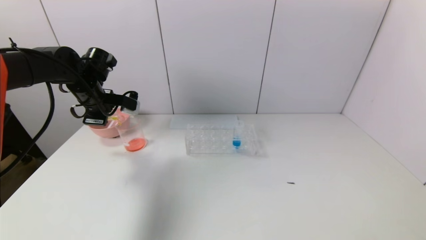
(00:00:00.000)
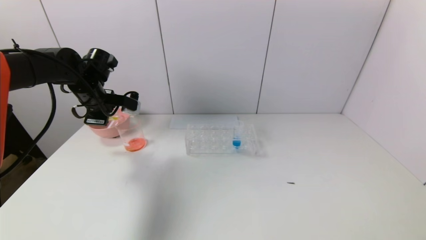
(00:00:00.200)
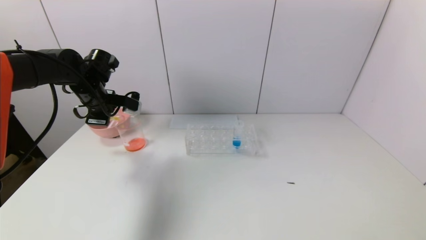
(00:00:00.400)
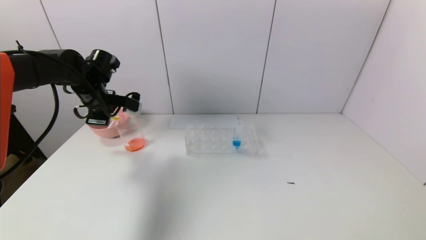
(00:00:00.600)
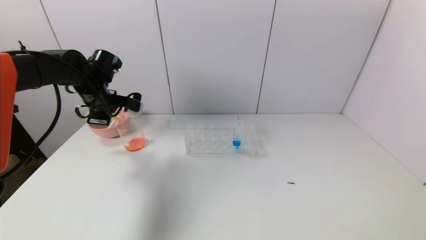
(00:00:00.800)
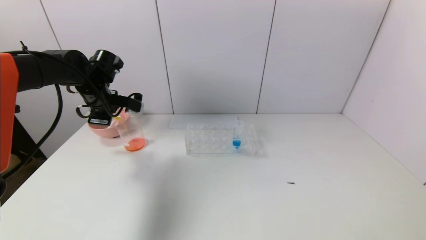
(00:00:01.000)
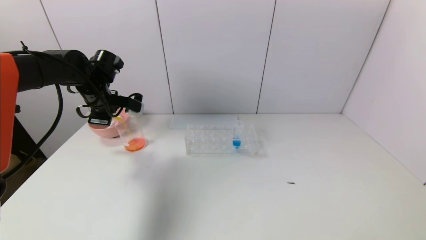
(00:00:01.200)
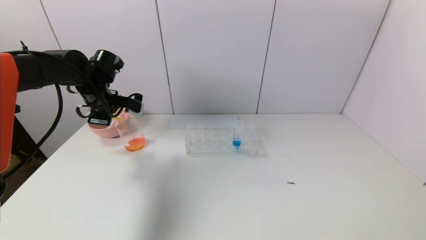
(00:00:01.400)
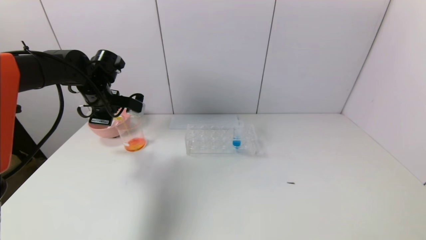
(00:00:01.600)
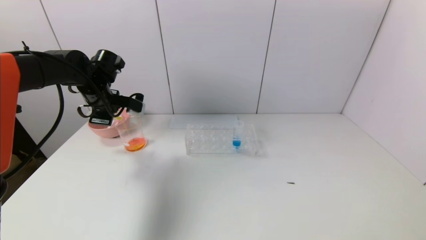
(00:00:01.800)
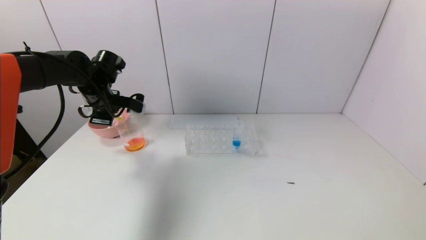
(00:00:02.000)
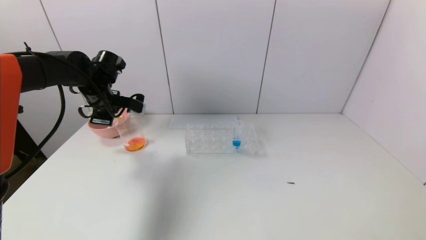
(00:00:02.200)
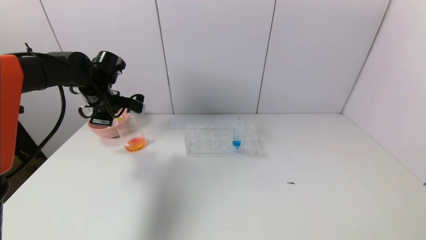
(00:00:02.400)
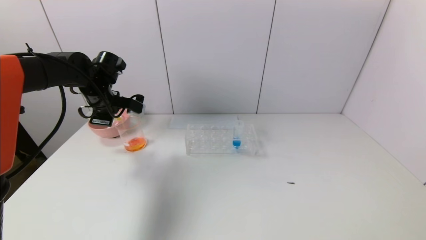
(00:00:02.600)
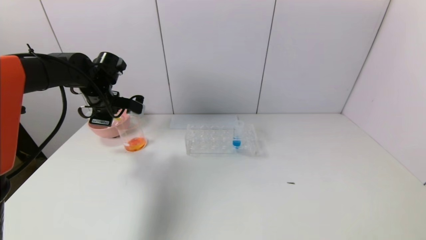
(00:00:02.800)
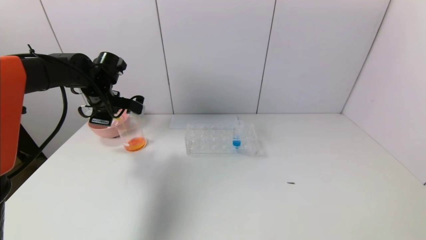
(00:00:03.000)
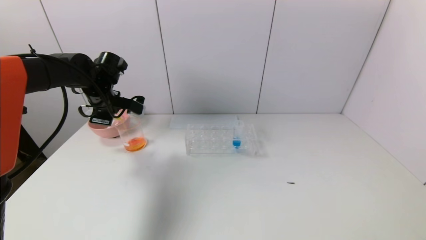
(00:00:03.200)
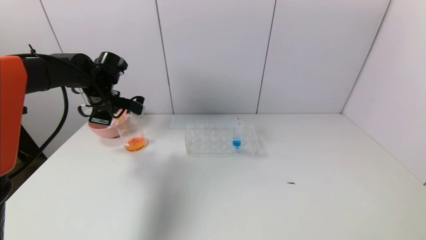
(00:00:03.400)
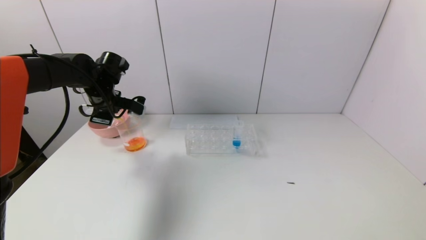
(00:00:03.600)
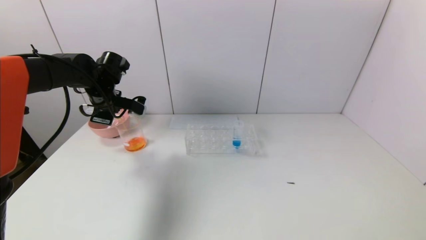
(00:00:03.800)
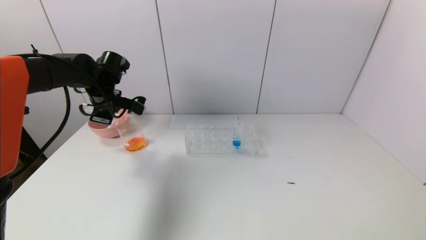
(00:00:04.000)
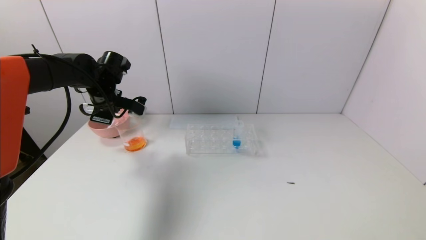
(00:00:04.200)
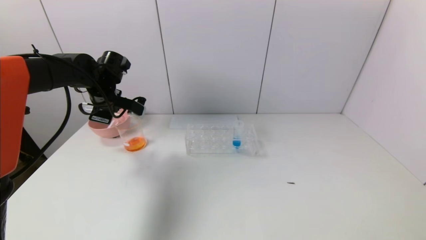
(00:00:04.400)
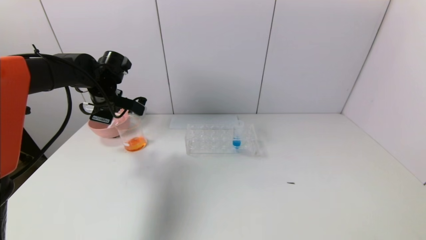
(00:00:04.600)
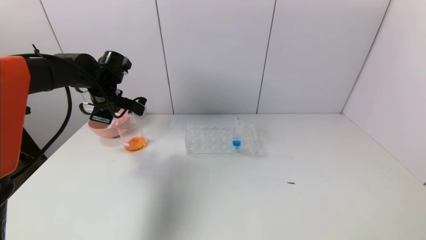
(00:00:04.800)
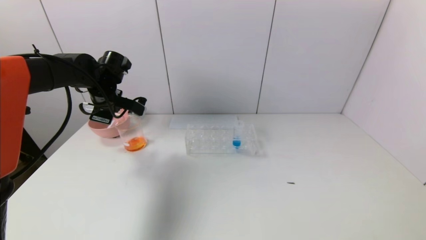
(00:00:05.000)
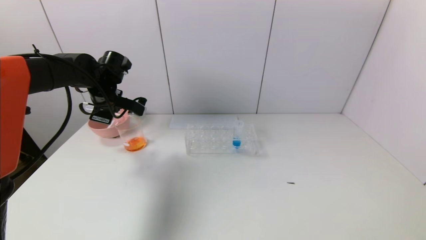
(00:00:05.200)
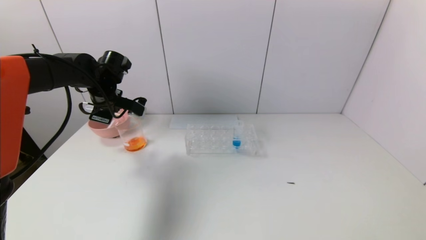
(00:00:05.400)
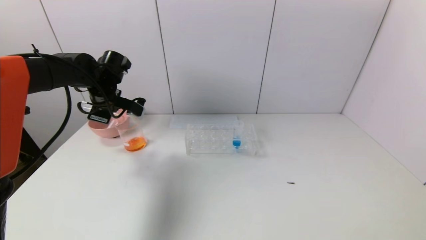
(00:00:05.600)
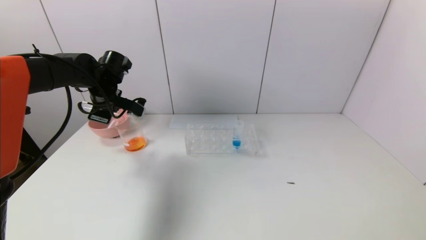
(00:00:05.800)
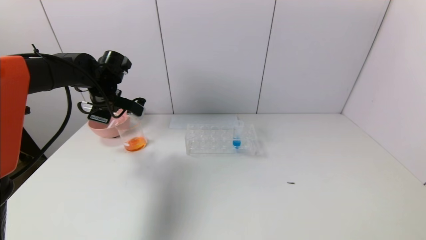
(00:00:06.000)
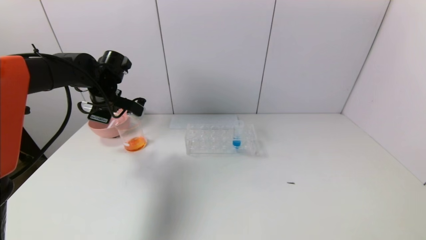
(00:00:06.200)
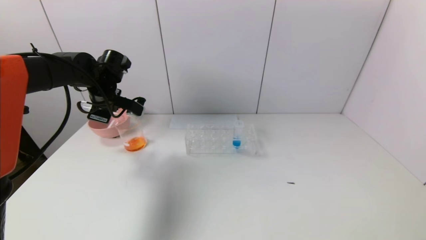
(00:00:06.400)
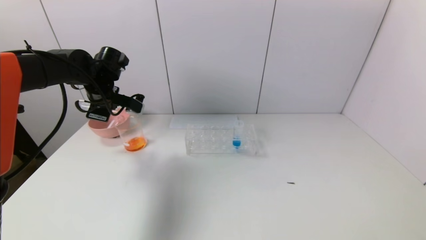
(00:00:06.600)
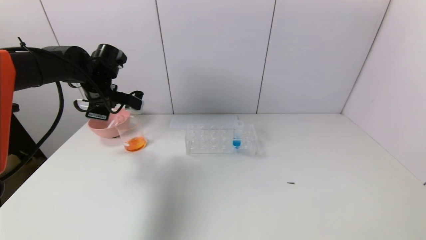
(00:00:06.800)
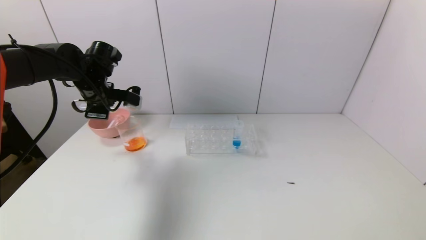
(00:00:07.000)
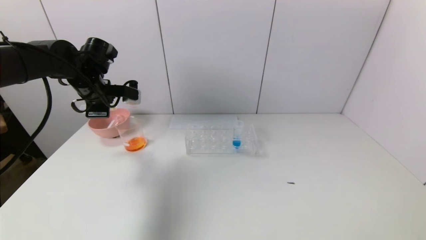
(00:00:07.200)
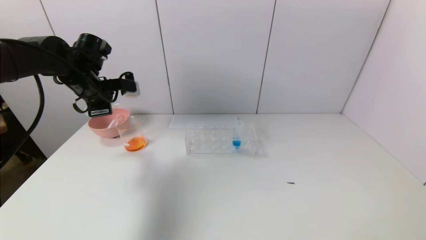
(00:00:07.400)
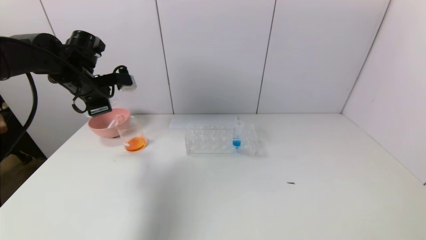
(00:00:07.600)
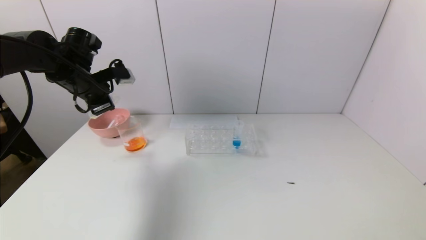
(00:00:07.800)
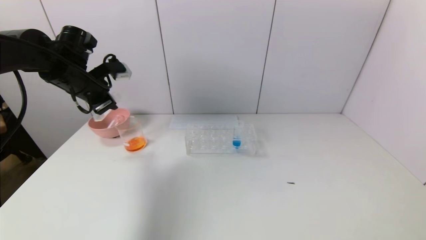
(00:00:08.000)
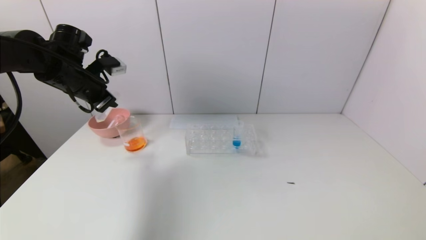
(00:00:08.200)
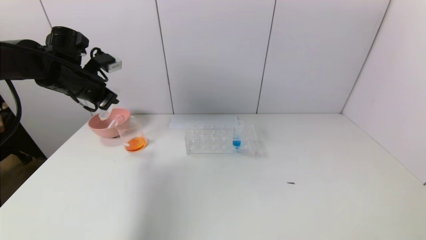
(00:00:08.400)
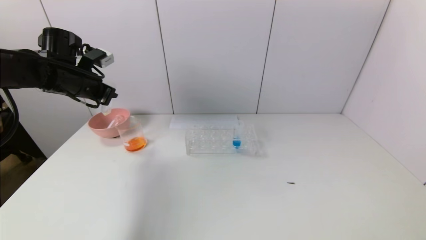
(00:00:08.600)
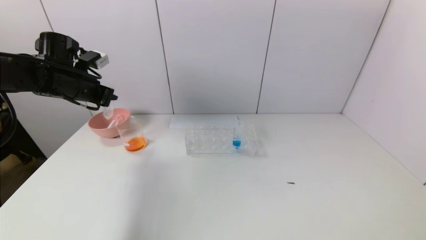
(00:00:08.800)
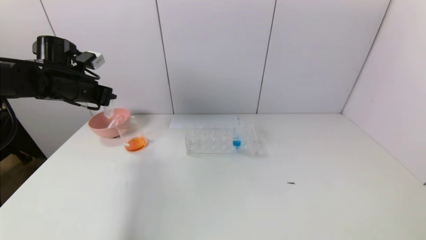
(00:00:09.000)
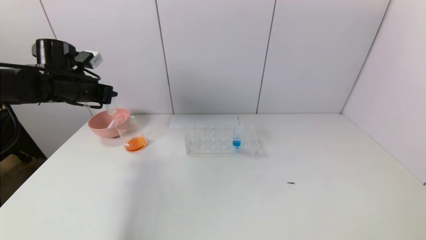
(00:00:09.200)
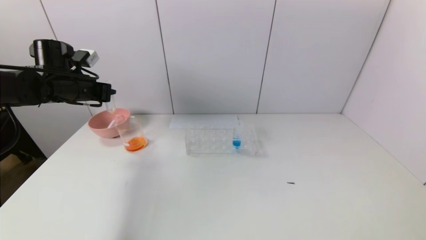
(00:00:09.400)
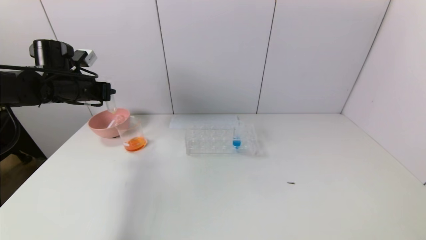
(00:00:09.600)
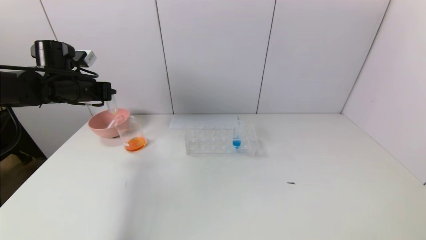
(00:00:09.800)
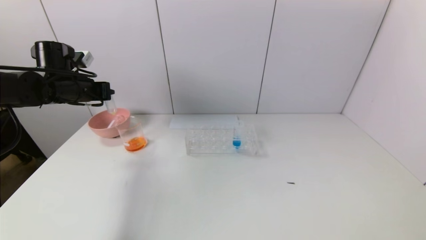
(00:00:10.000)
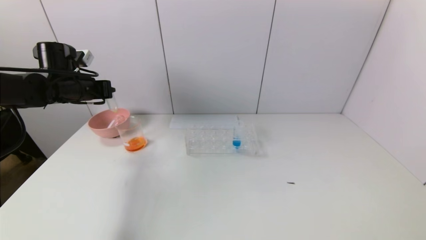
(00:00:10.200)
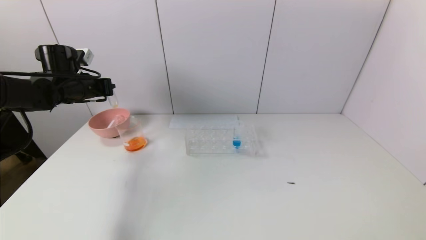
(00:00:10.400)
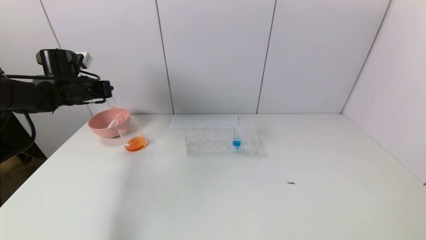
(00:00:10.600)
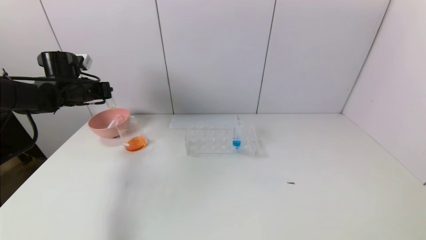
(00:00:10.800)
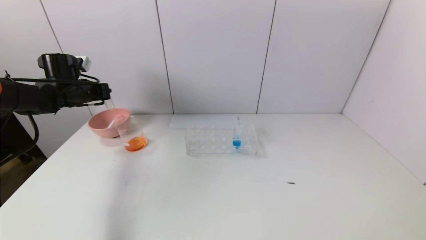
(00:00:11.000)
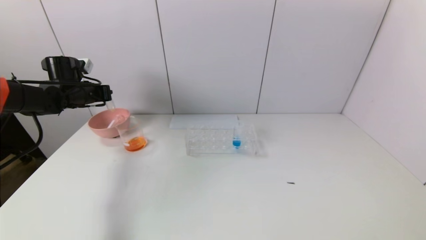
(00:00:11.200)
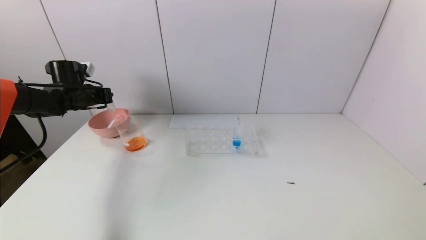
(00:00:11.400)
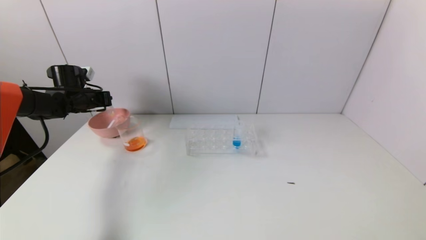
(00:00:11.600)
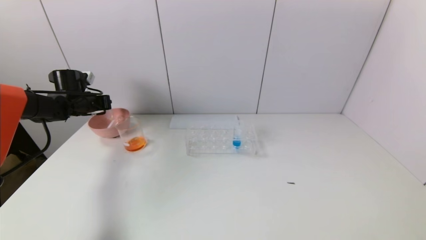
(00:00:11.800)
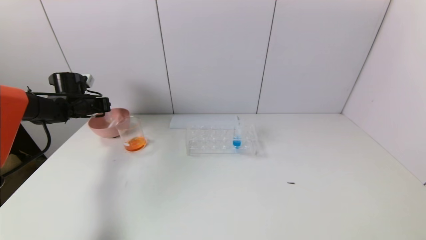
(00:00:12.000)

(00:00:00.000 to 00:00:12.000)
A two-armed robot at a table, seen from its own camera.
Task of the whole recording: pick up the test tube with yellow pigment and the test tube with red pigment by grippers and pour them into the beaker.
Step, 00:00:00.000 - 00:00:06.600: Pour the yellow reagent into the graduated cylinder with the left gripper.
00:00:00.000 - 00:00:01.600: The grippers move only a little.
00:00:01.600 - 00:00:03.000: Both grippers stay about where they are.
00:00:03.000 - 00:00:04.400: There are only small adjustments of the grippers.
00:00:04.400 - 00:00:06.000: Neither gripper changes place.
00:00:06.000 - 00:00:07.600: The left gripper moves roughly 5 cm.
00:00:10.400 - 00:00:12.000: The left gripper goes some 10 cm downward, forward and to the left.

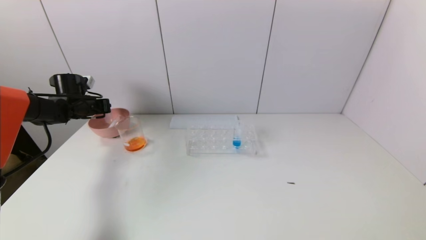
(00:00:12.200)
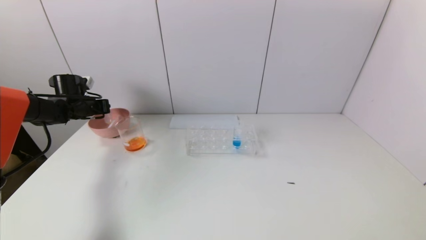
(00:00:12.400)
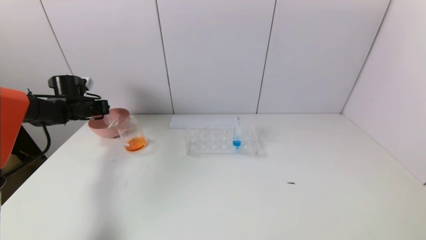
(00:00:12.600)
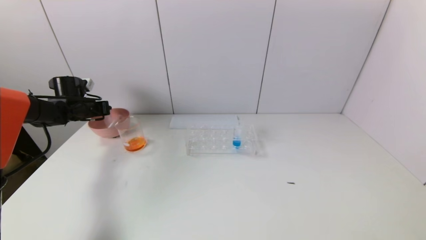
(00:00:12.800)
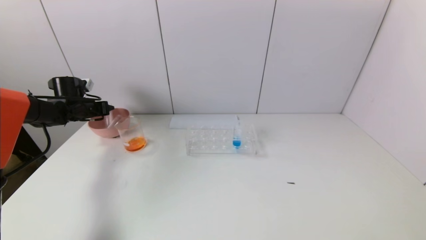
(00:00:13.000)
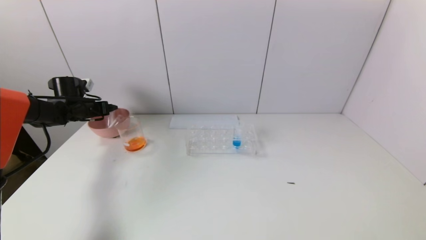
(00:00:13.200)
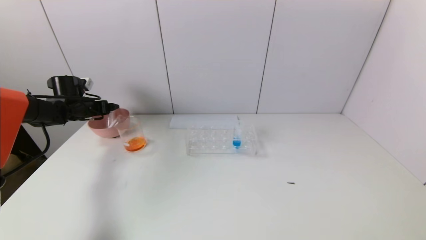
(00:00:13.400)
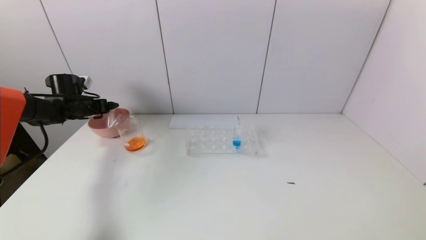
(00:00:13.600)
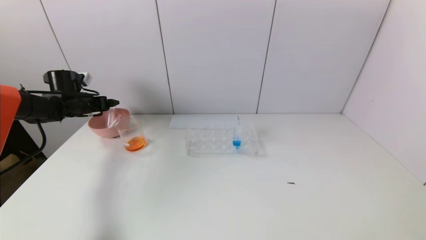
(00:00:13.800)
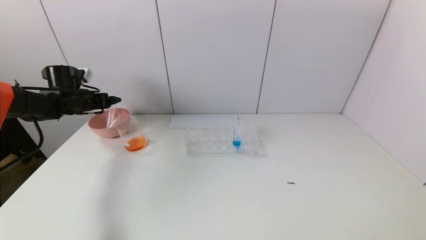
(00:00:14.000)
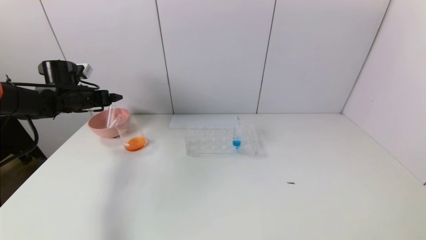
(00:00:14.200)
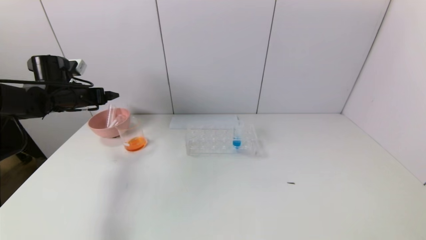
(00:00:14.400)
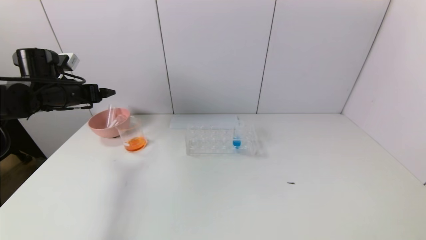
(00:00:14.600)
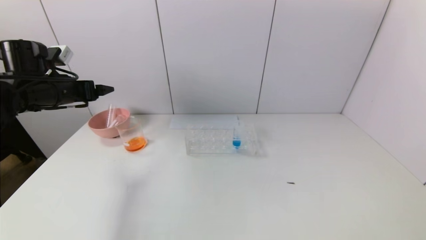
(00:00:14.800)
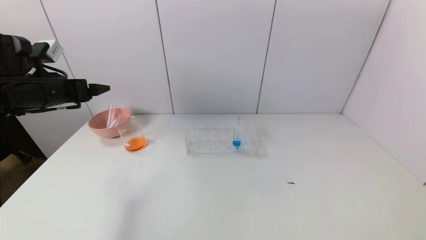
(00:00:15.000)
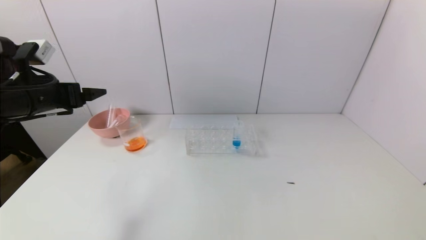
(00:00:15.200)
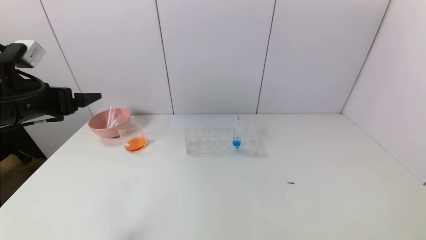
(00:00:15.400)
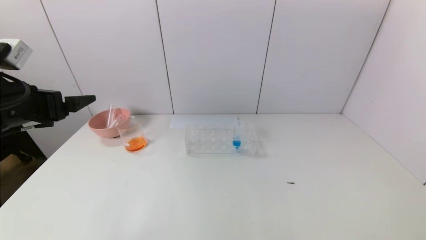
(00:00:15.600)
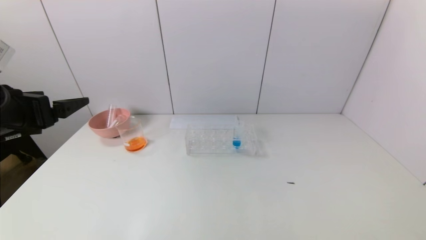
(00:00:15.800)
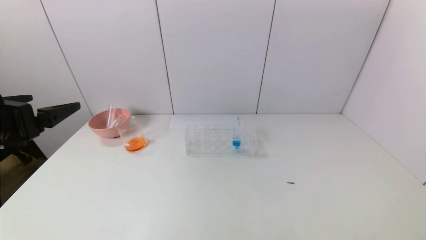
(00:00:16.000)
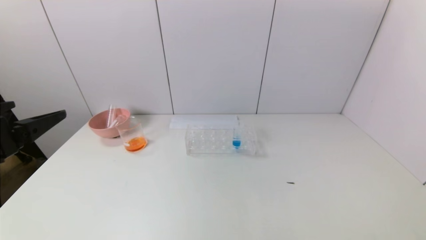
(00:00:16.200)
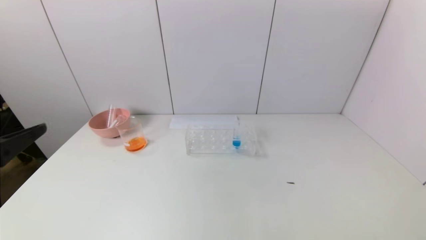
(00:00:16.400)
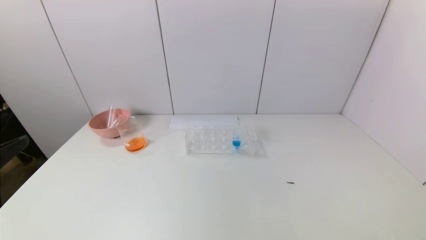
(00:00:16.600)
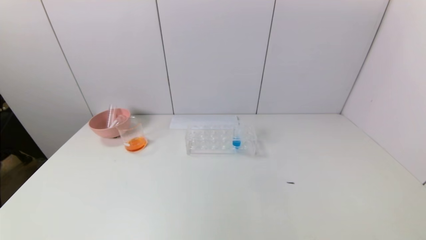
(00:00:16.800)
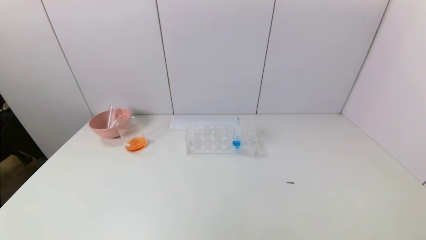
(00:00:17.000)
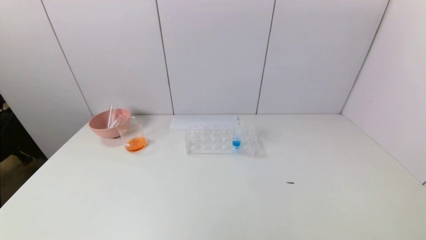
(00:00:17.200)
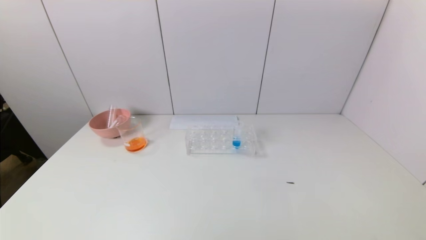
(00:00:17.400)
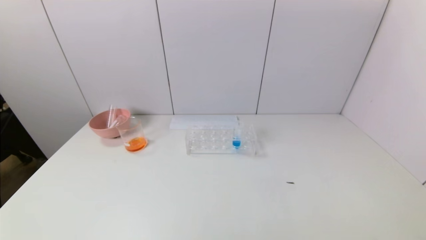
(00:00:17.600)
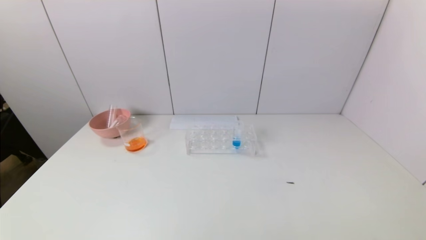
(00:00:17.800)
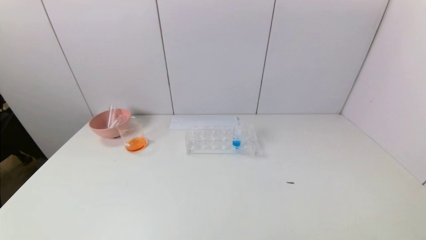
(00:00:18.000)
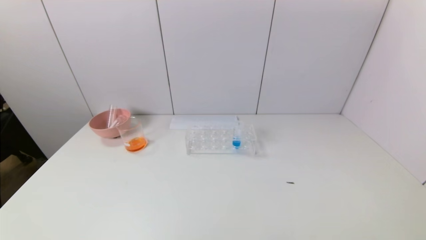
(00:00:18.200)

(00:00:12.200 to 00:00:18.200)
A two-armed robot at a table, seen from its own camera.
Task of the whole recording: pick up the test tube with yellow pigment and the test tube with red pigment by grippers and pour them into the beaker.
00:00:12.200 - 00:00:13.800: The left gripper opens up.
00:00:13.800 - 00:00:15.200: The left gripper goes approximately 20 cm backward, upward and to the right.
00:00:15.200 - 00:00:16.600: The left gripper heads backward, covering roughly 25 cm.
